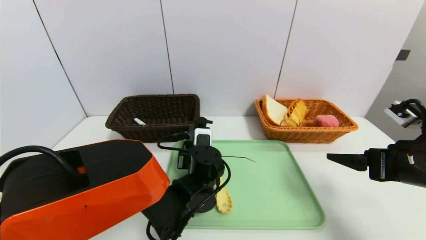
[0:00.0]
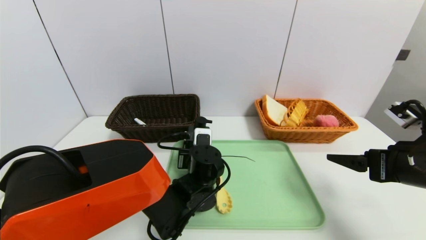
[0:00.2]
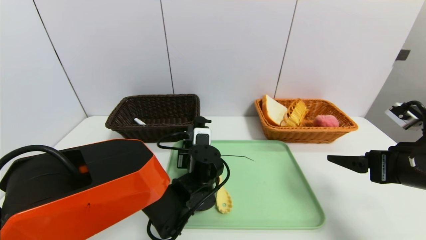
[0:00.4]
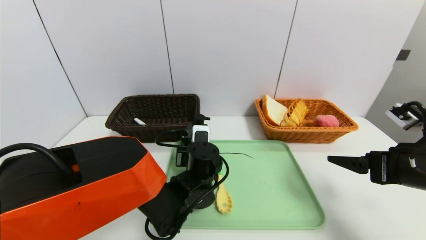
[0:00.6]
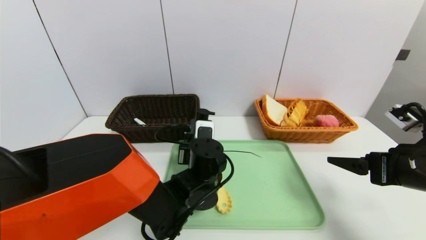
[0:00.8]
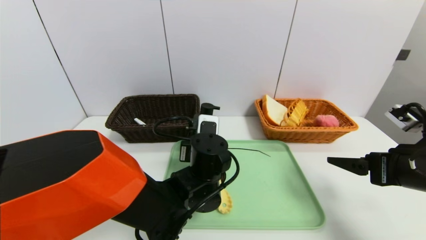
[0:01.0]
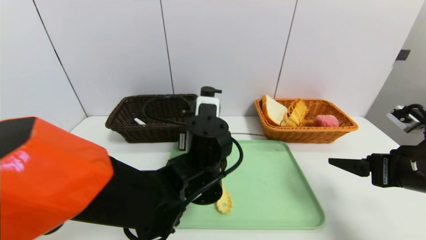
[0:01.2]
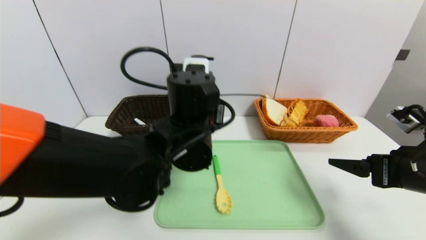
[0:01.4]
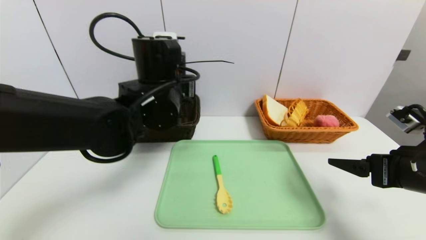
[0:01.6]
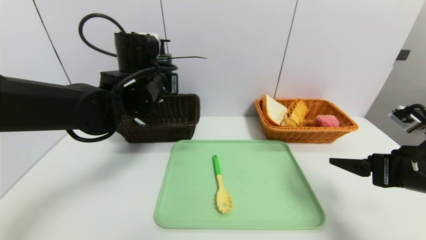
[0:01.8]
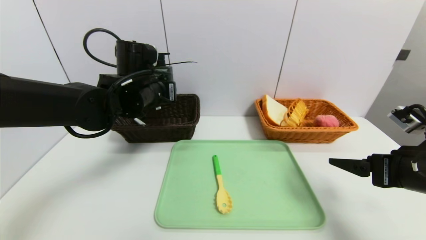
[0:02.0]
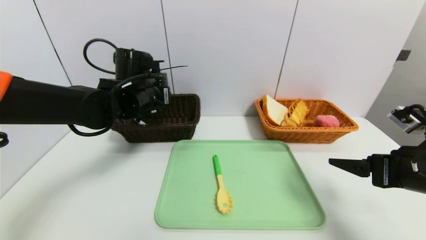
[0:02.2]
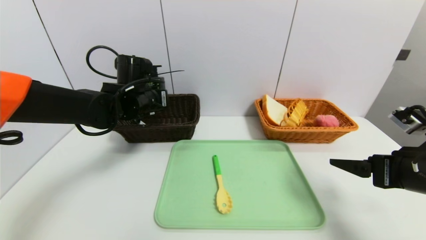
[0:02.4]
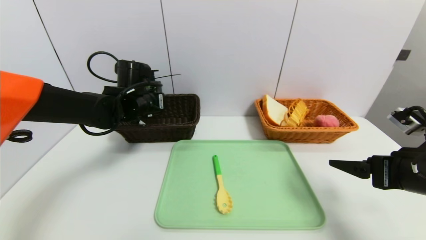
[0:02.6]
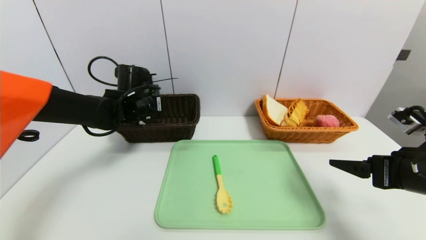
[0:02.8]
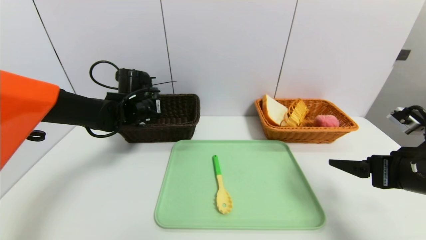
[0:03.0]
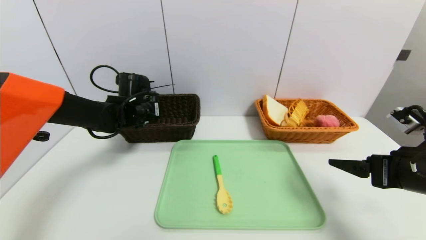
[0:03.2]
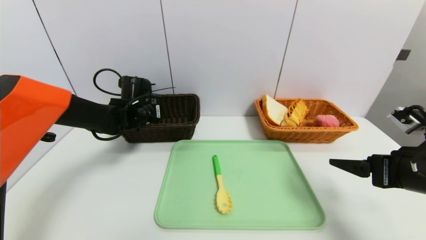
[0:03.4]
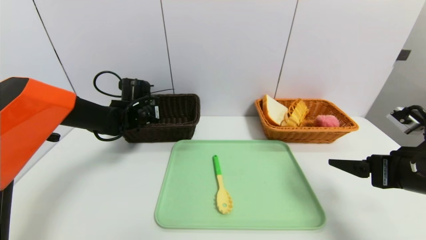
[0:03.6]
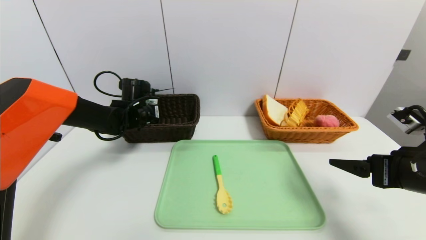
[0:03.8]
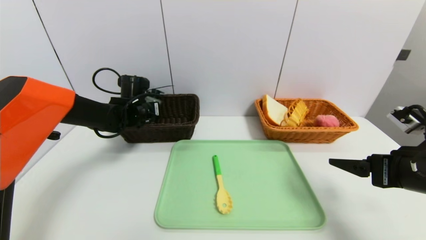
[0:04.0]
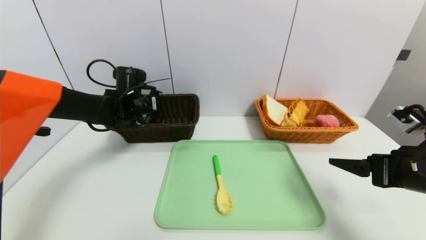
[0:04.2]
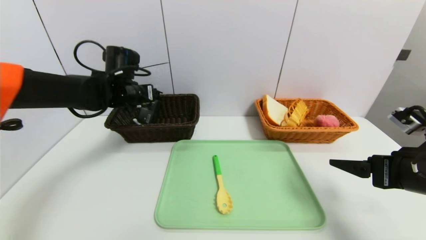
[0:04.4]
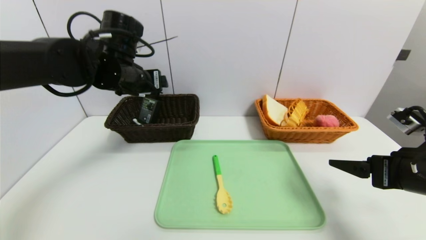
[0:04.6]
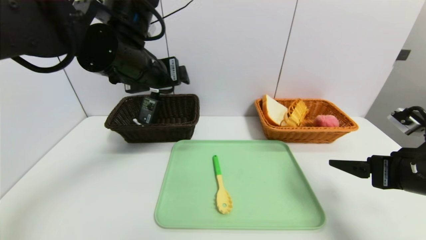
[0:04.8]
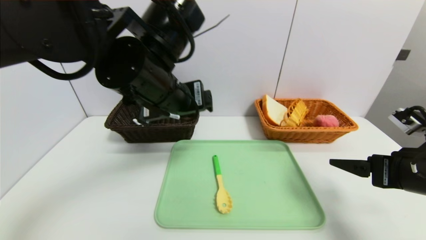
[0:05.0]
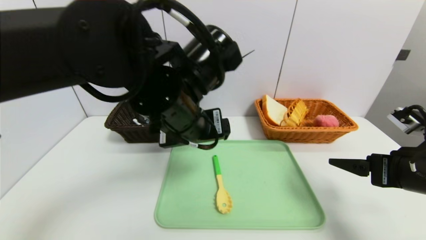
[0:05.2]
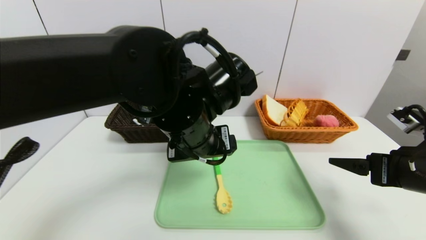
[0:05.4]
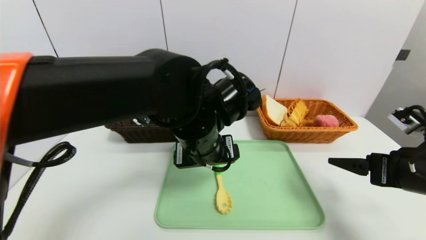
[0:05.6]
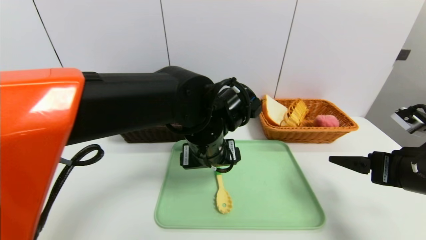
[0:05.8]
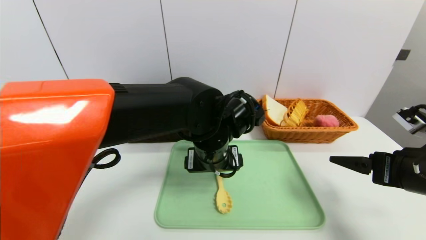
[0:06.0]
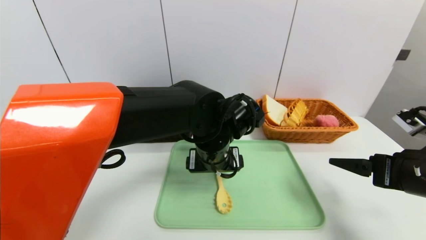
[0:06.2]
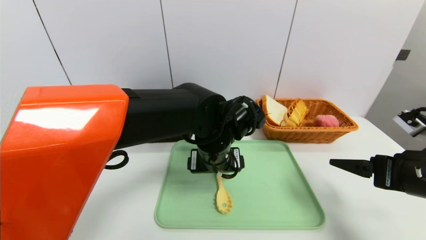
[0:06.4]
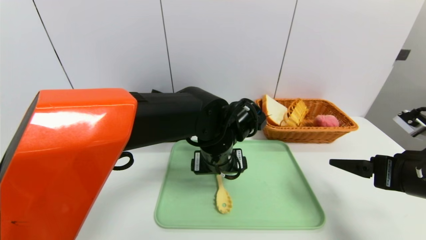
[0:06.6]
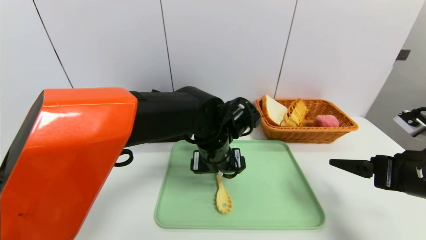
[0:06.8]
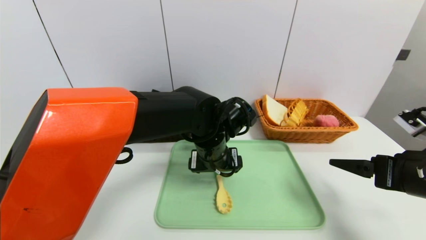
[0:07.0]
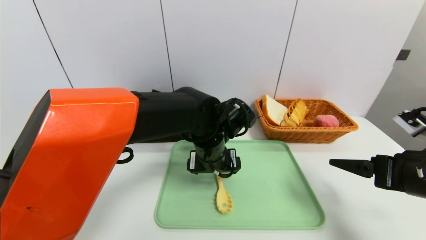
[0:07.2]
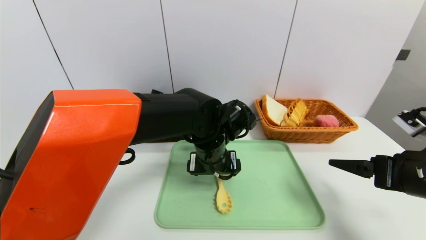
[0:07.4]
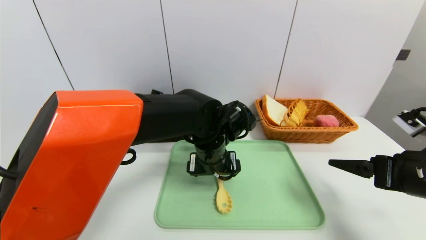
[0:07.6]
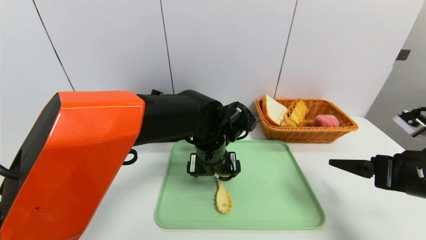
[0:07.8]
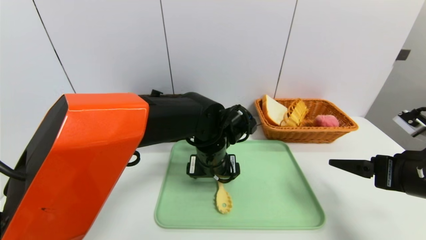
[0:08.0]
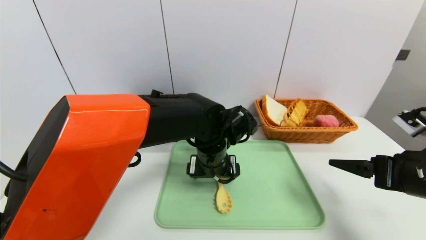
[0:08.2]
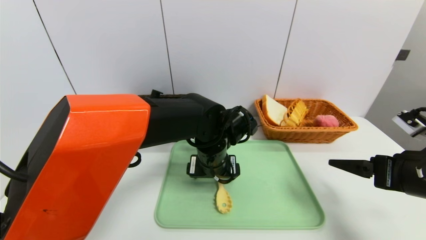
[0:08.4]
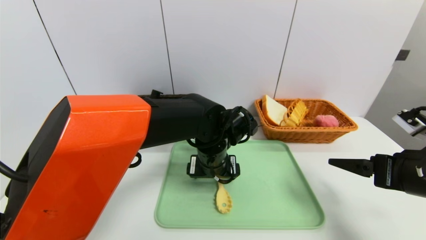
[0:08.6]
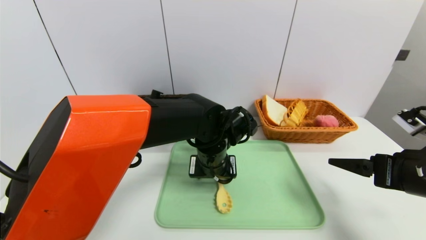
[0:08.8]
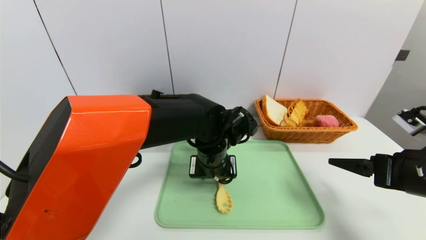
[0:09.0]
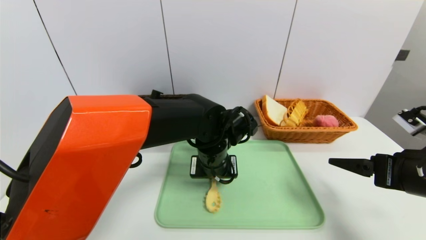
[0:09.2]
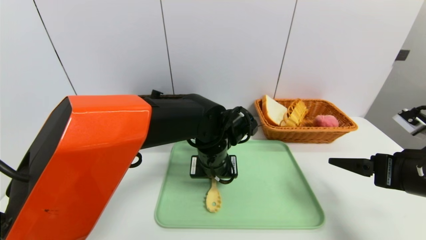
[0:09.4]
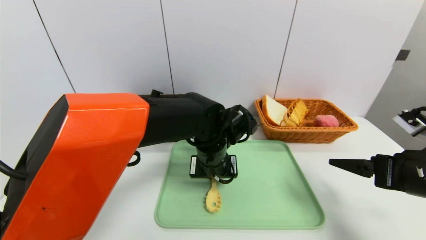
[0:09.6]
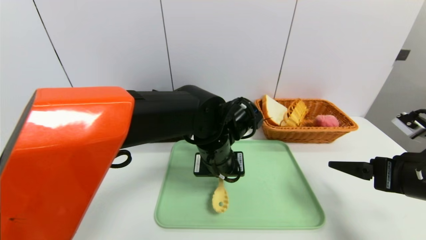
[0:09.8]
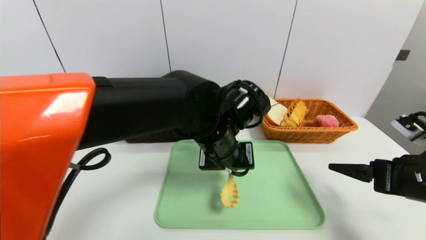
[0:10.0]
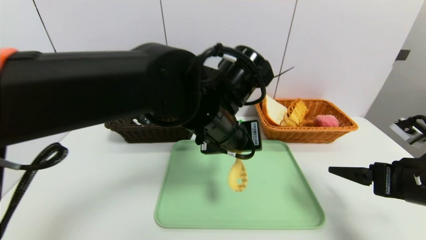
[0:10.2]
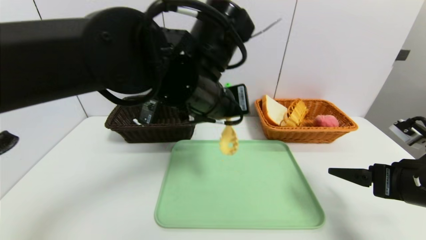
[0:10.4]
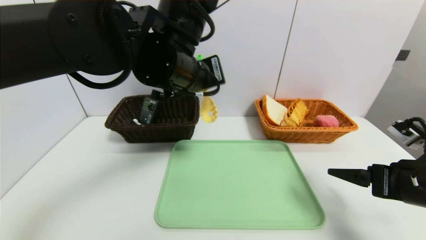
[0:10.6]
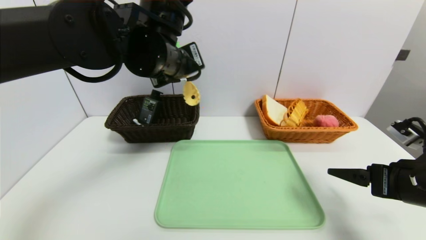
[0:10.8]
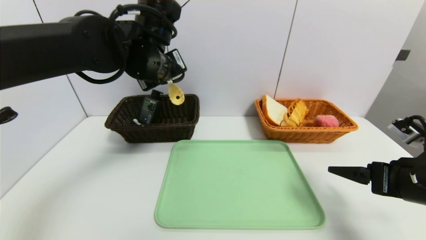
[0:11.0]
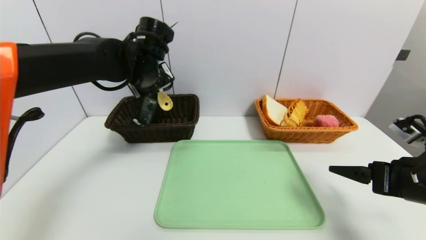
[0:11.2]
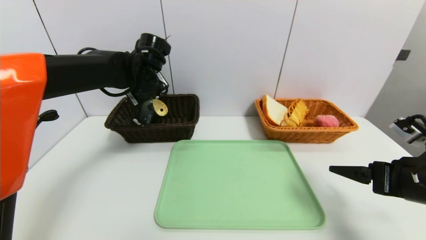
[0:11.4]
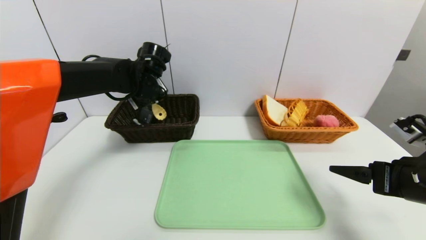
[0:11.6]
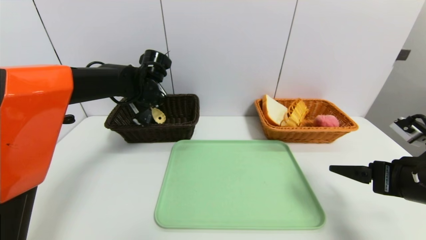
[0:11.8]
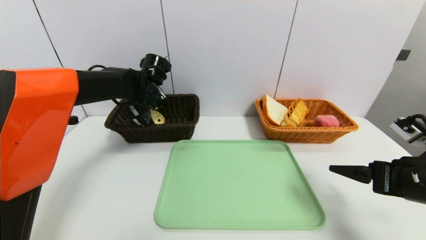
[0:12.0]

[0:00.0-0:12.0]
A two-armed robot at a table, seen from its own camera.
Task of the whole recording: place the food in the right basket with the right gripper, and place the non food items in the left basket with the left gripper.
Step, 0:00.0 to 0:04.4: Grasp the hard cleanser and put it in the left basket.
0:00.0 to 0:01.6: The left gripper moves upward, roughly 20 cm.
0:01.6 to 0:03.0: The left gripper goes about 15 cm forward, to the left and downward.
0:03.0 to 0:04.4: The left gripper shifts roughly 5 cm upward.
0:04.4 to 0:06.0: The left gripper goes approximately 25 cm to the right and backward.
0:06.0 to 0:07.6: The grippers stay close to where they were, moving slightly.
0:07.6 to 0:09.0: The left gripper closes its fingers.
0:09.0 to 0:10.4: The left gripper is displaced upward by about 15 cm, and closes.
0:10.4 to 0:12.0: The left gripper is displaced forward, to the left and downward by roughly 25 cm.

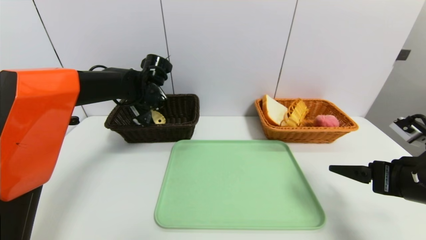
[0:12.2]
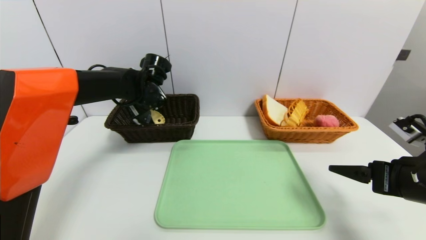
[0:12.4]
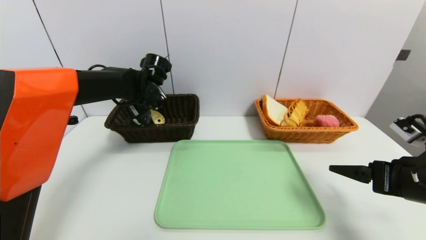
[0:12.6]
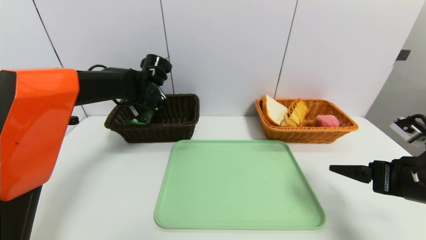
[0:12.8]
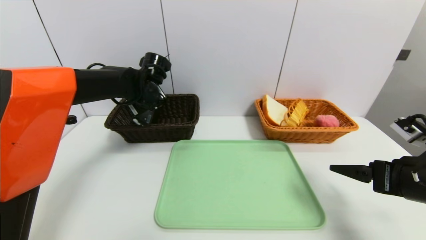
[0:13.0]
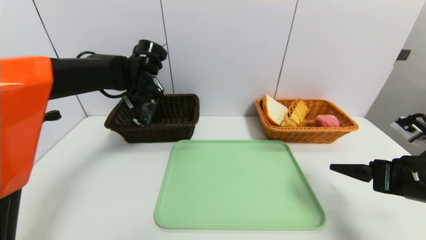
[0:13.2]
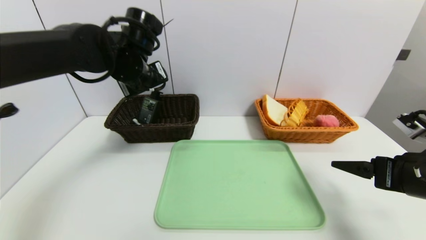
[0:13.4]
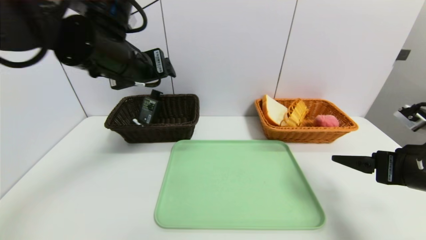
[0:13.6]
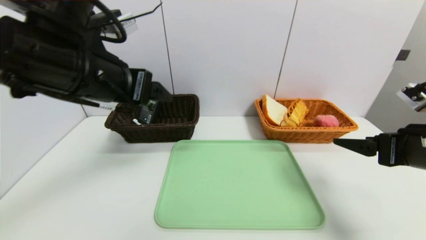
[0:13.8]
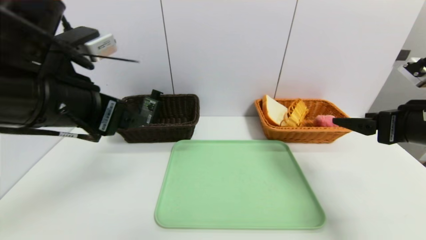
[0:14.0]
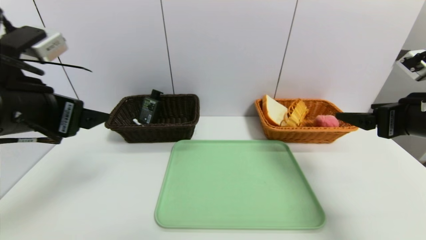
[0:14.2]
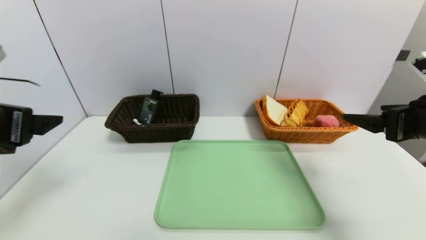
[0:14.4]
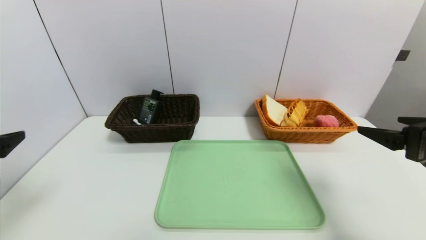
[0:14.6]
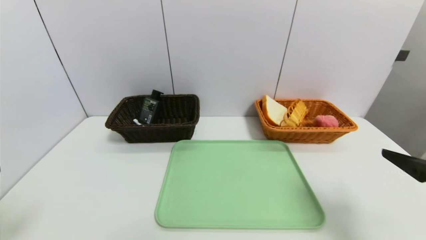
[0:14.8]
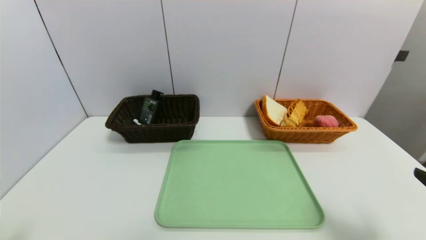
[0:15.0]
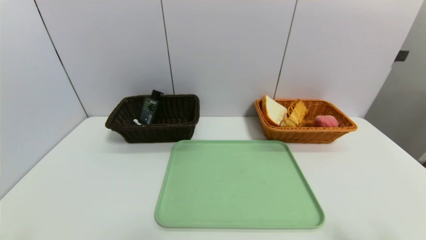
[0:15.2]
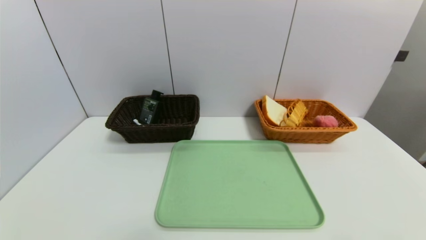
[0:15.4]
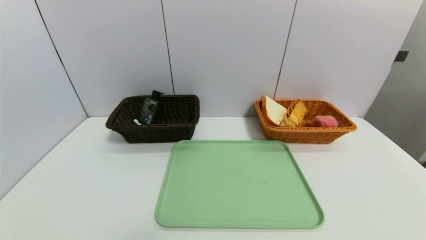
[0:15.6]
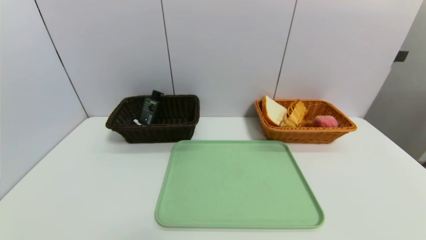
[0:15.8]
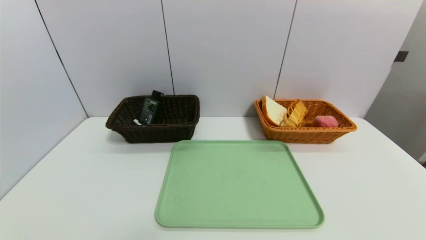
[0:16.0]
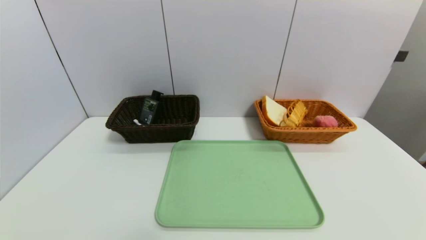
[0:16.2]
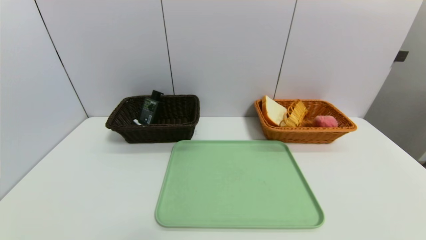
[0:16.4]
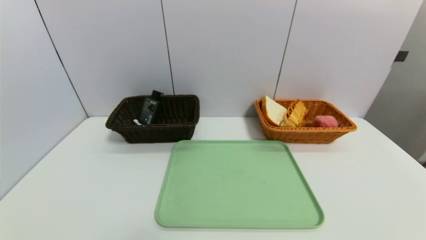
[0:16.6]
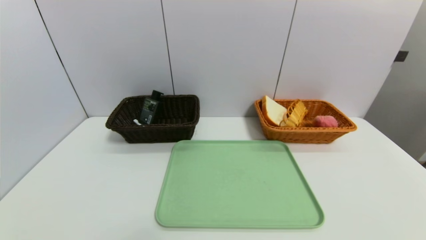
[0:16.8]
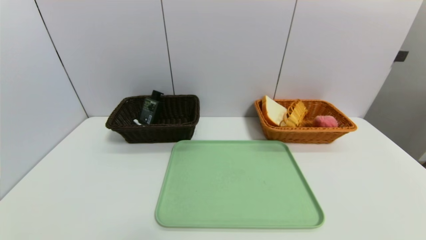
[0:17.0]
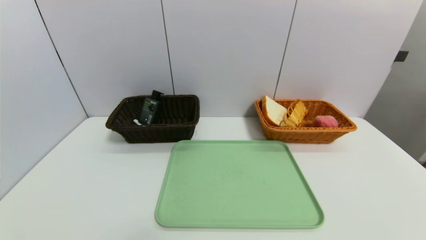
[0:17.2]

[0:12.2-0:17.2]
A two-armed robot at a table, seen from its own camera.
Task of the whole recording: place the food in the right basket with the right gripper, and place the non food items in the left basket with the left gripper.
0:12.2 to 0:13.8: The left gripper heads backward and upward, covering about 25 cm, and opens up.
0:13.8 to 0:15.6: The left gripper heads backward, downward and to the left, covering roughly 35 cm. Meanwhile the right gripper shifts some 25 cm backward and downward.
